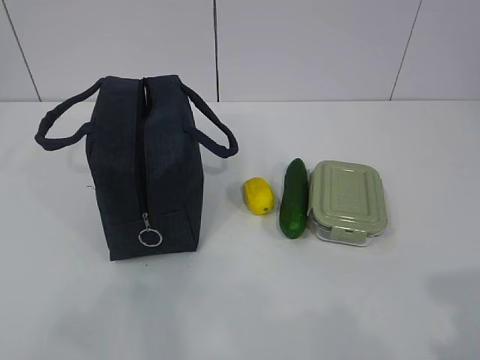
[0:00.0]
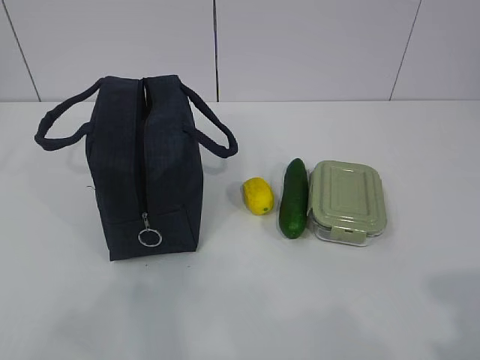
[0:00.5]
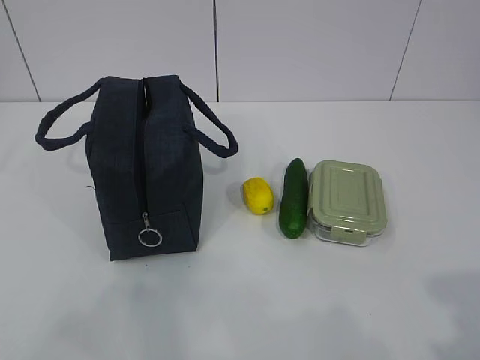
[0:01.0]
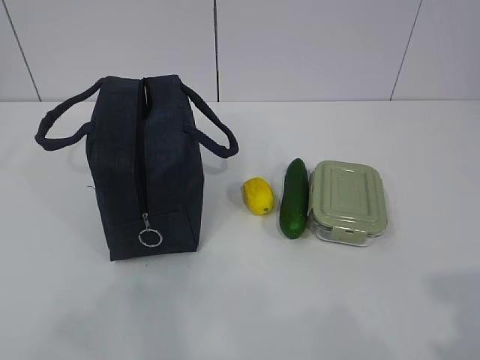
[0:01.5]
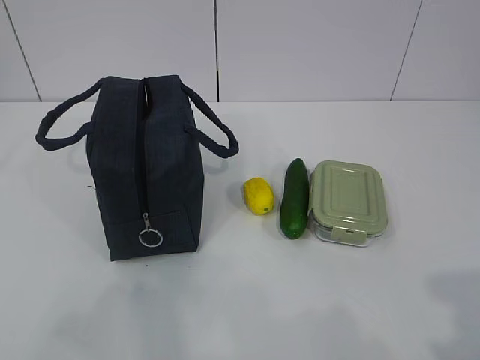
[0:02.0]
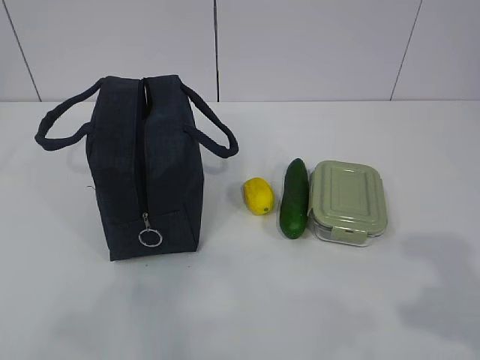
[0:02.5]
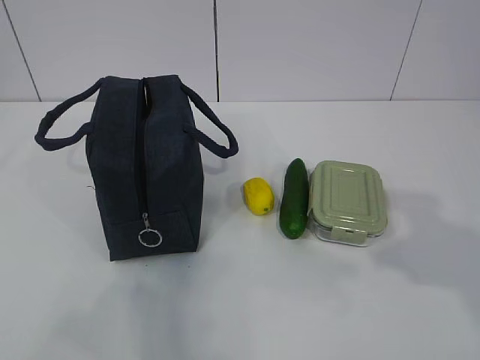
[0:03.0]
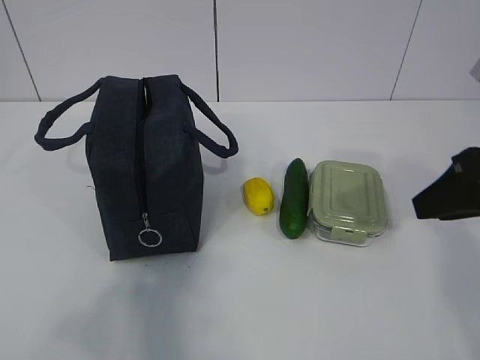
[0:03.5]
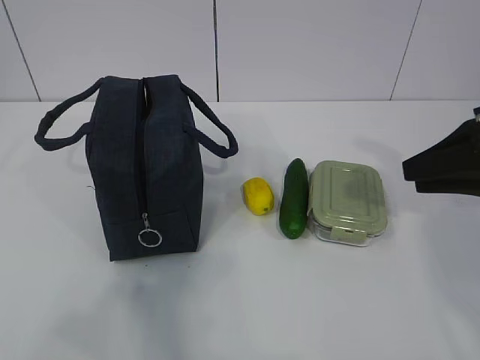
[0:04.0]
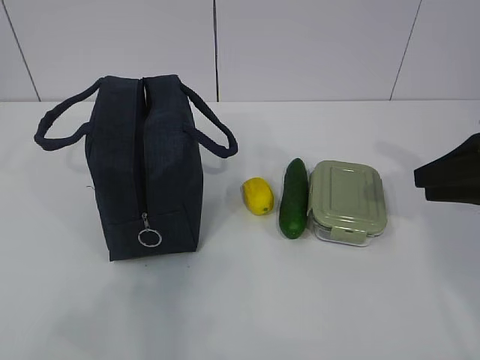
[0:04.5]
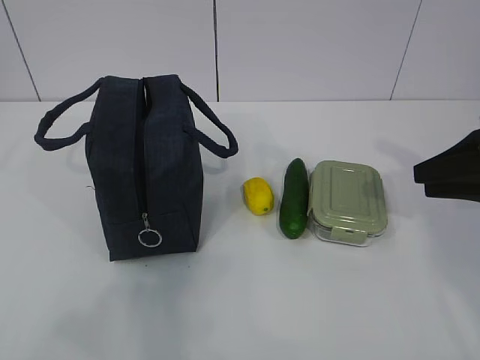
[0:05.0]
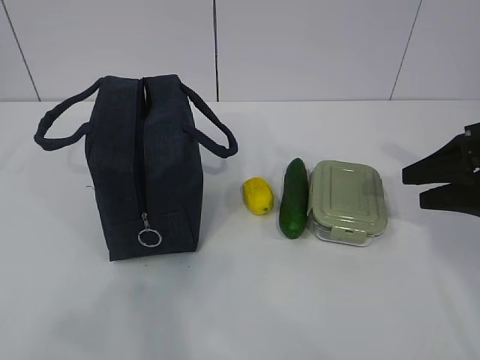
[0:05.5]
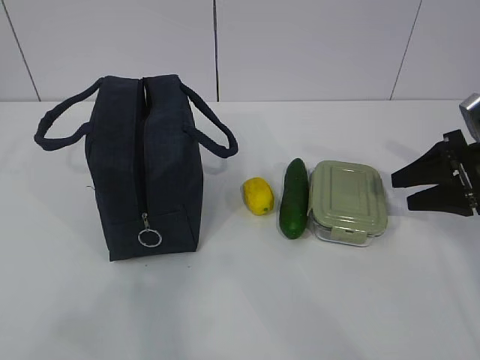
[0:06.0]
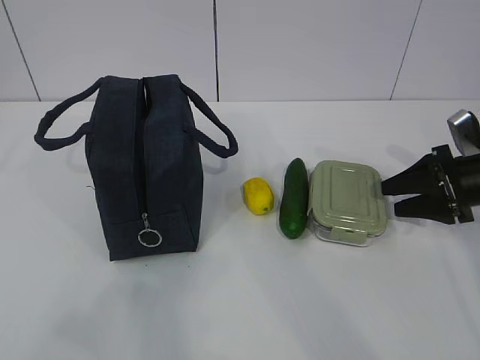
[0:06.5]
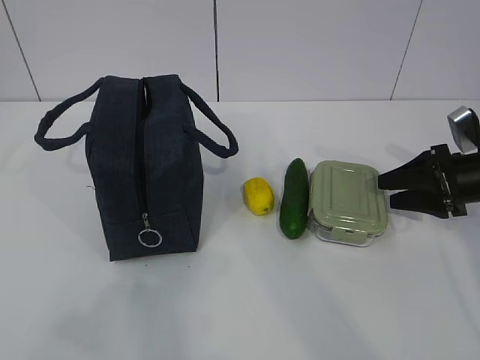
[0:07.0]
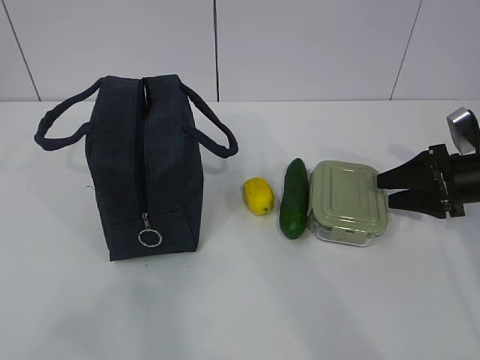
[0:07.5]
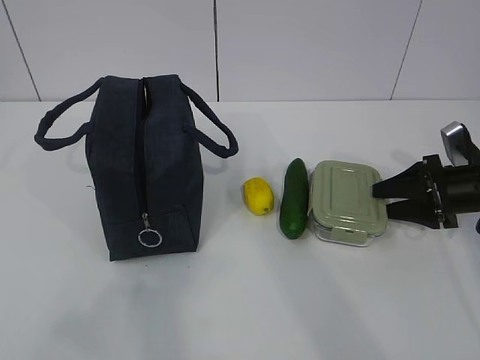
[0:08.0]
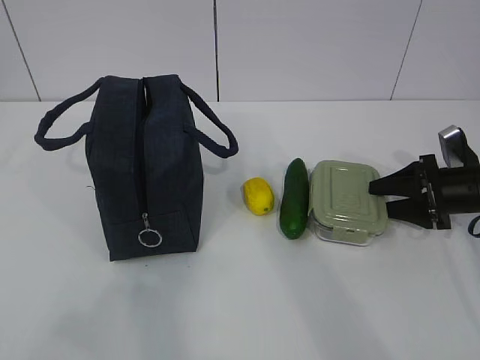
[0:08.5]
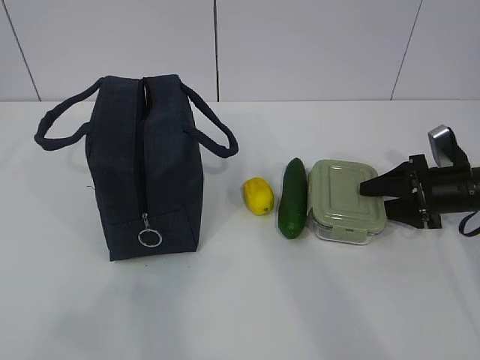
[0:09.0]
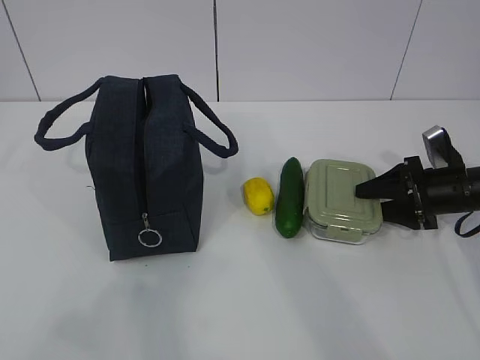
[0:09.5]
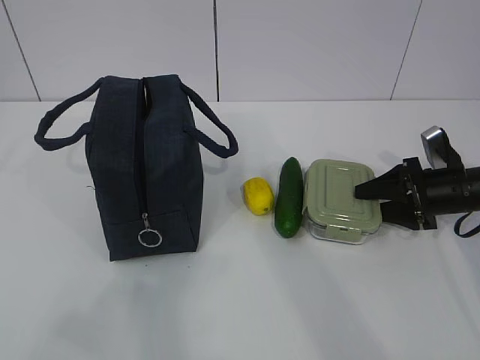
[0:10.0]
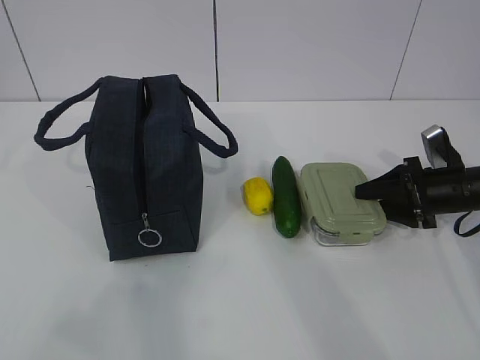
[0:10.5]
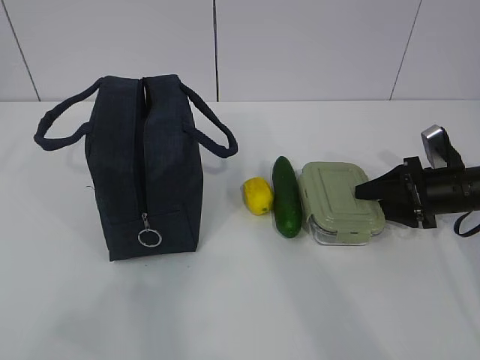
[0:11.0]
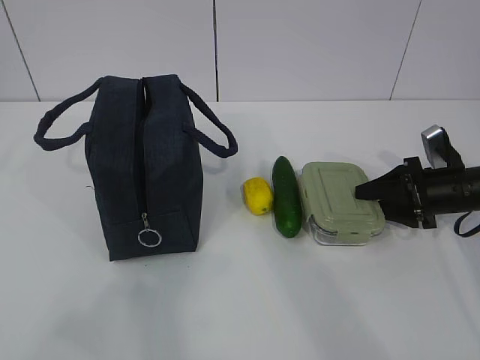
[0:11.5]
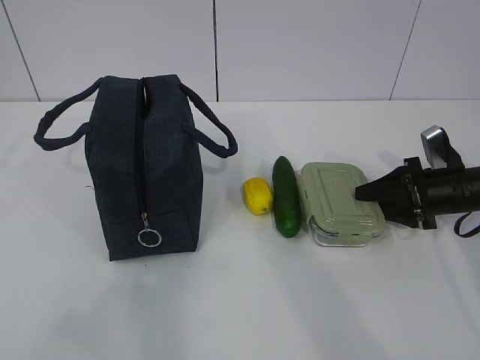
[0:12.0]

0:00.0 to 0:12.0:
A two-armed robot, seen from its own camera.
Step, 0:00.0 to 0:08.5: Grab the lunch box with your right hand.
0:02.0 to 0:04.0: The right gripper travels forward by some 30 cm.
0:04.0 to 0:06.0: The right gripper shifts about 15 cm downward, forward and to the right, and opens.
0:06.0 to 0:08.0: The right gripper is displaced downward by roughly 5 cm.
0:08.0 to 0:10.0: The grippers move only a little.
0:10.0 to 0:12.0: The two grippers keep their place.

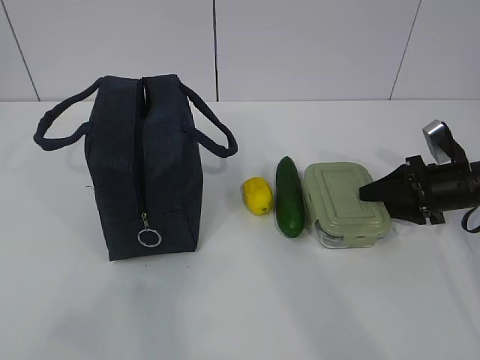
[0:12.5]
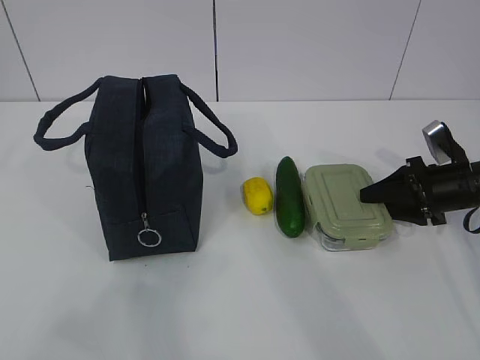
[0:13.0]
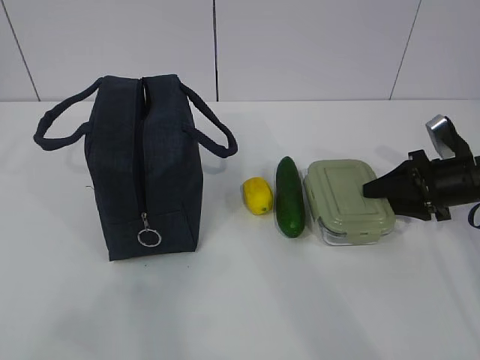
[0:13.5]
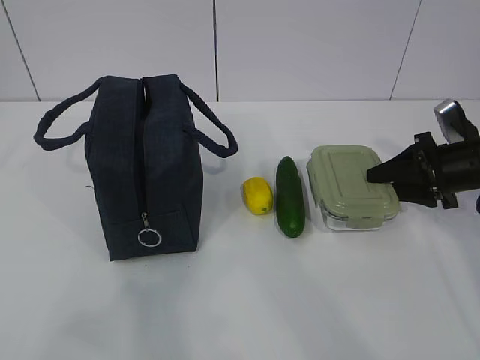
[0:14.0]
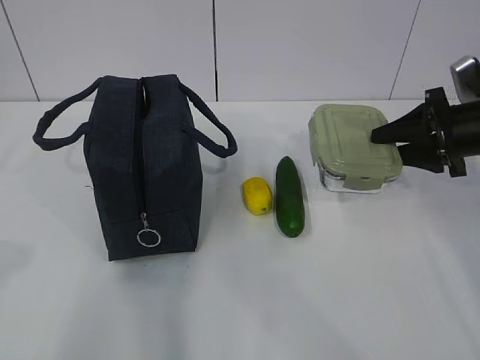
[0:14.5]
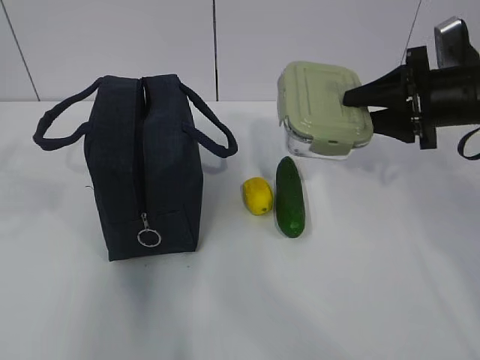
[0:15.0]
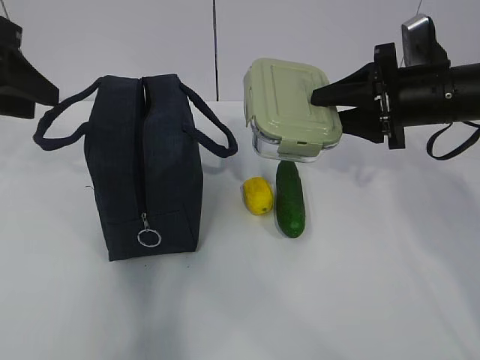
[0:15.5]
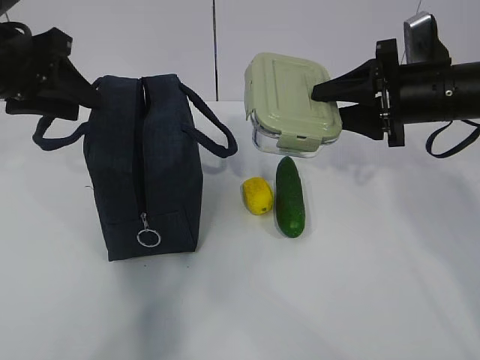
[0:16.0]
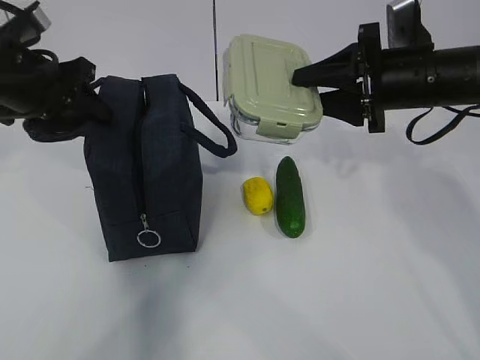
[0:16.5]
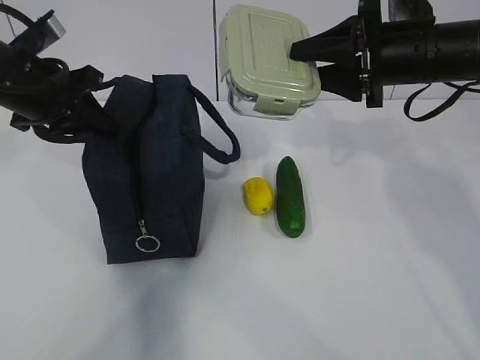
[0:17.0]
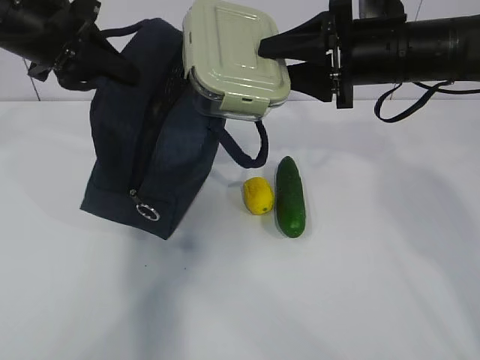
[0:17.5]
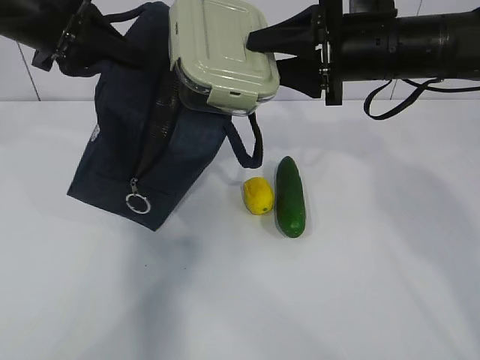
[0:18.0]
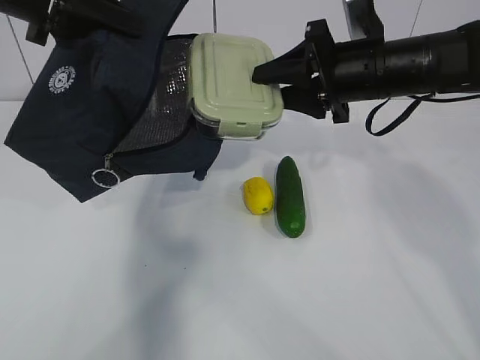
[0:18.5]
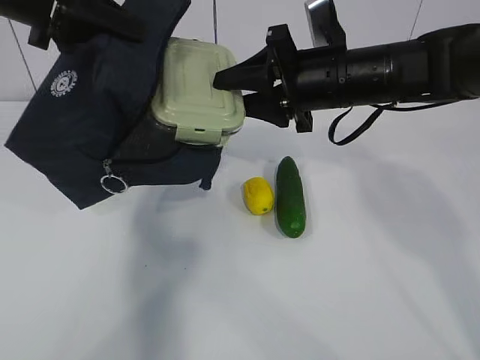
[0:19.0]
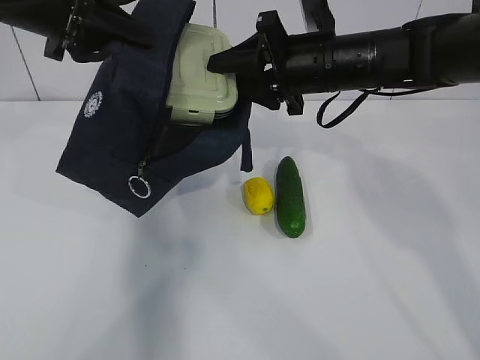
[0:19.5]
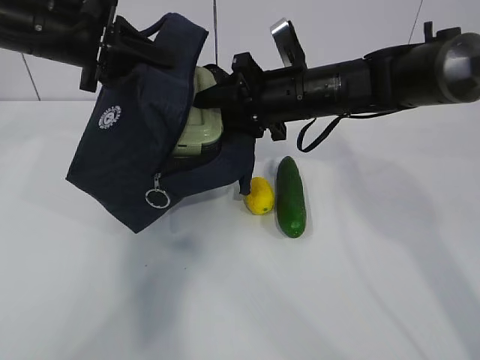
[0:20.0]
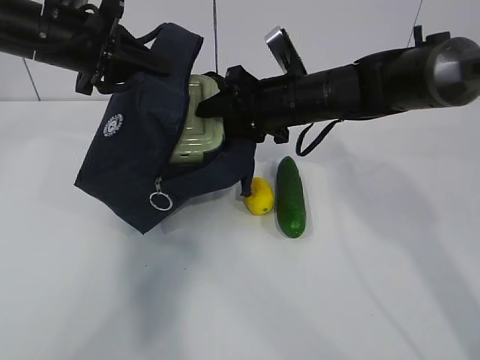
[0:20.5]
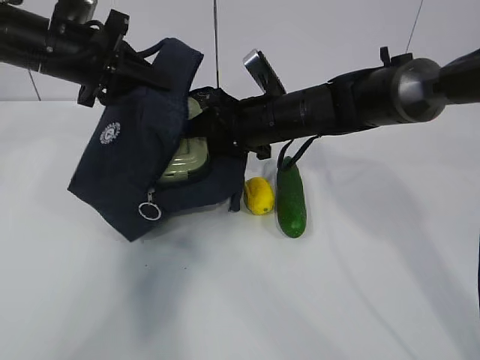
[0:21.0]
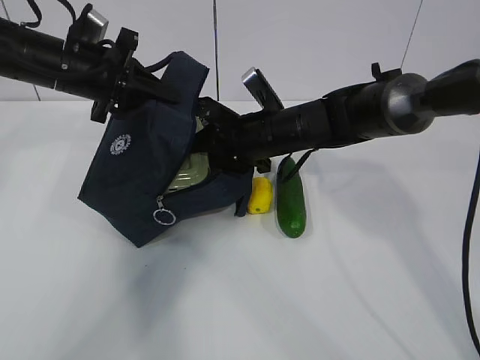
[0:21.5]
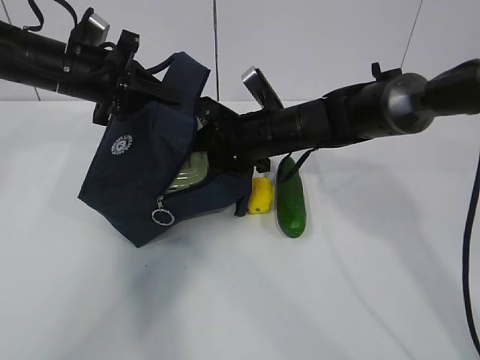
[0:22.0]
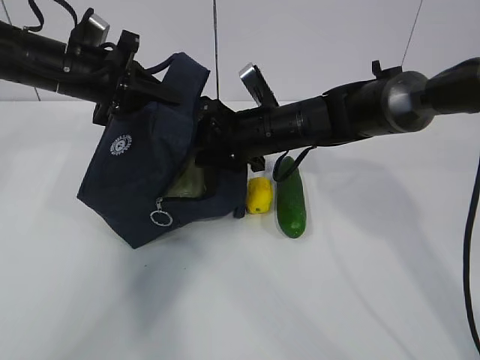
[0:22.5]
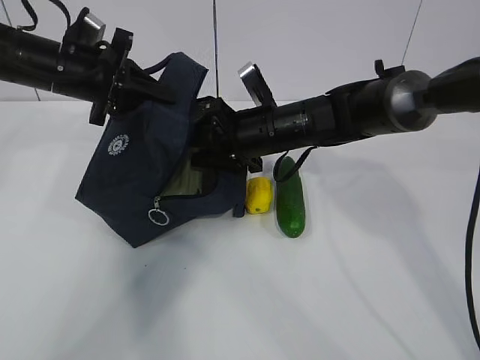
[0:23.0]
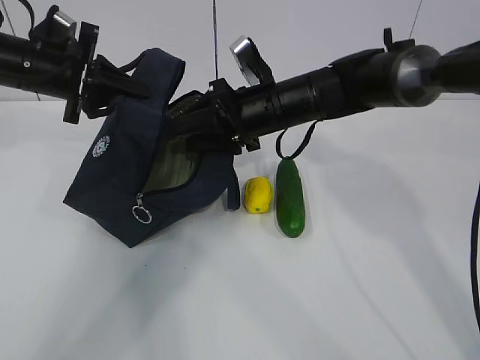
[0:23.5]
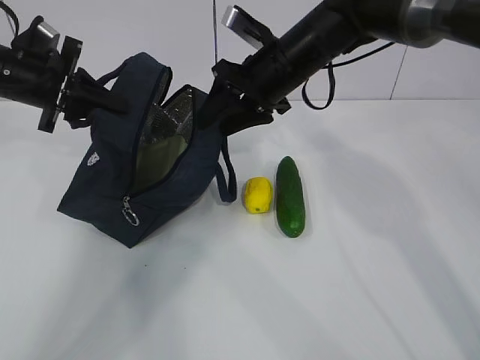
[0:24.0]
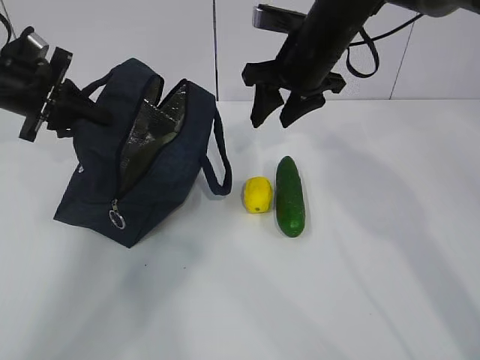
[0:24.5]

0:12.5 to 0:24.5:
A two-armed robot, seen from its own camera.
Step, 0:12.5 to 0:14.5: Grab the lunch bag with your left hand.
Step, 0:15.0 to 0:22.0: Grab the cucumber with your right hand.
Step, 0:23.0 to 0:24.0: Place it into the bag with your right hand.
0:12.5 to 0:14.5: The right gripper shifts about 10 cm upward; the left gripper heads forward, covering about 5 cm.
0:14.5 to 0:16.5: The right gripper shifts some 10 cm to the left and upward, while the left gripper heads forward, covering roughly 30 cm.
0:16.5 to 0:18.5: The left gripper travels upward by some 10 cm, and closes its fingers.
0:18.5 to 0:20.5: The left gripper is displaced downward and forward by approximately 10 cm. Meanwhile the right gripper is displaced to the left and downward by some 10 cm.
0:20.5 to 0:22.5: The right gripper shifts by some 5 cm. The left gripper ends up roughly 5 cm from where it was.
0:22.5 to 0:24.5: The left gripper heads to the left, covering roughly 10 cm; the right gripper travels upward by approximately 10 cm.

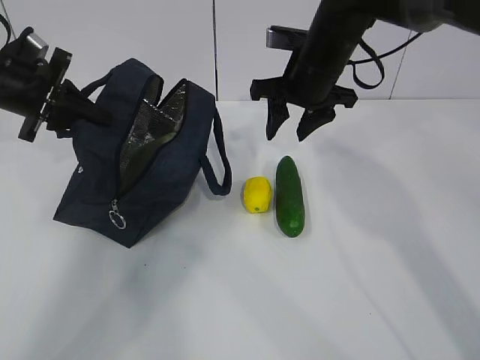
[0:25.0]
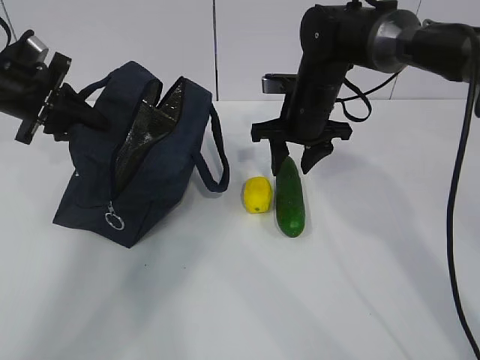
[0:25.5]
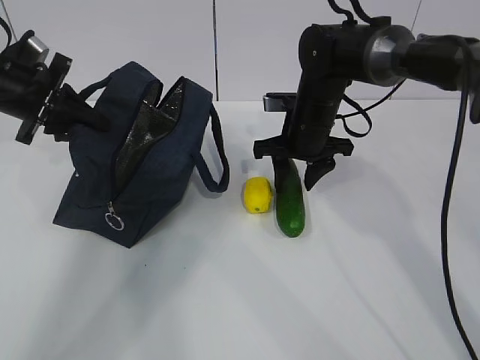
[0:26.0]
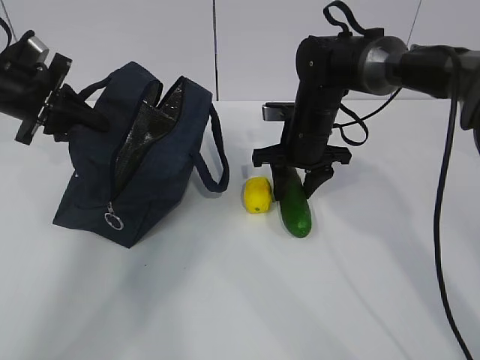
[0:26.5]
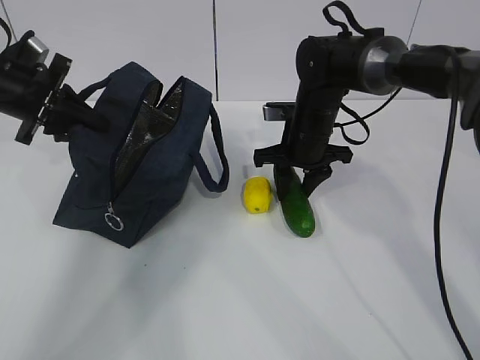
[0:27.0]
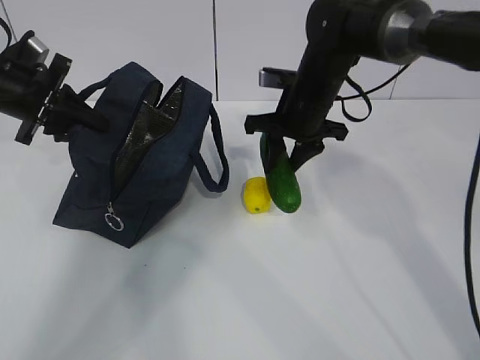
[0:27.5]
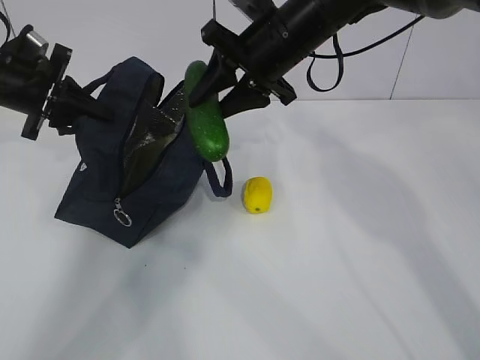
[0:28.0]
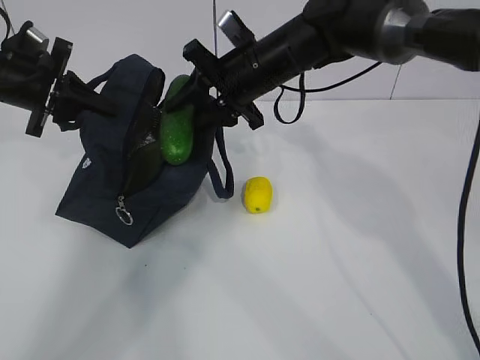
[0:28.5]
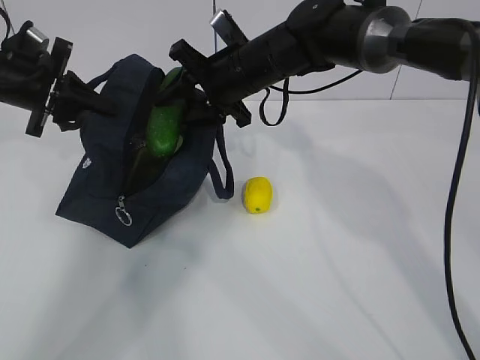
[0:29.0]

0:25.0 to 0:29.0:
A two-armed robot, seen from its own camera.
0:25.0 to 0:27.0: The right gripper moves downward, approximately 10 cm.
0:27.0 to 0:29.0: The right gripper moves upward and to the left, approximately 10 cm.
